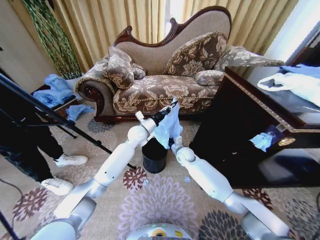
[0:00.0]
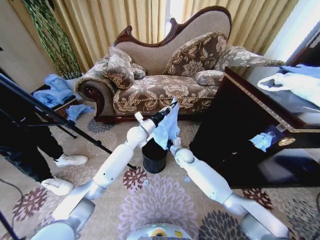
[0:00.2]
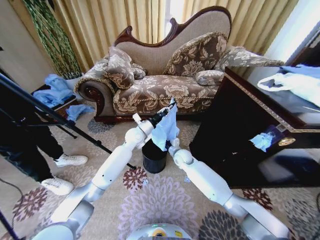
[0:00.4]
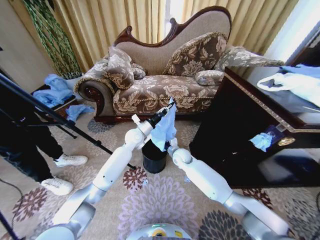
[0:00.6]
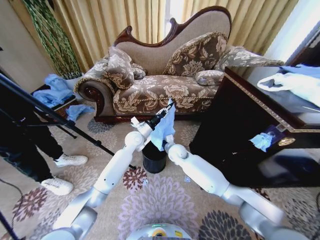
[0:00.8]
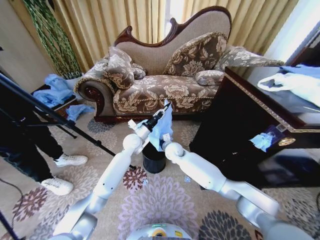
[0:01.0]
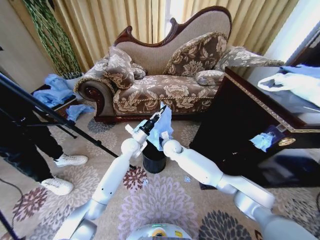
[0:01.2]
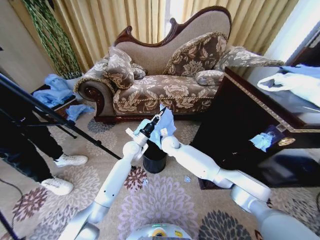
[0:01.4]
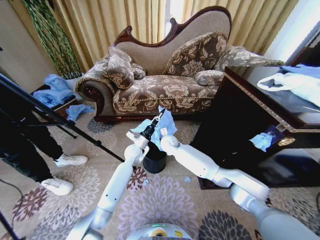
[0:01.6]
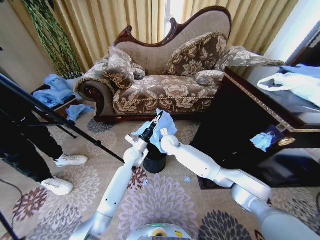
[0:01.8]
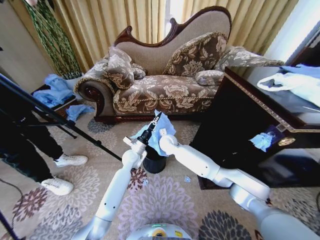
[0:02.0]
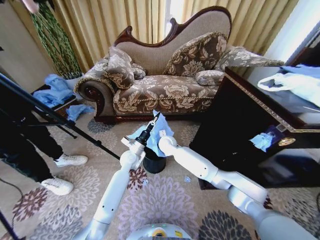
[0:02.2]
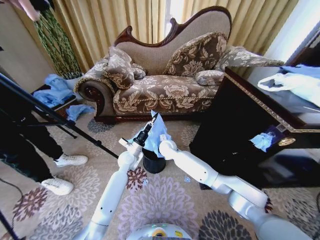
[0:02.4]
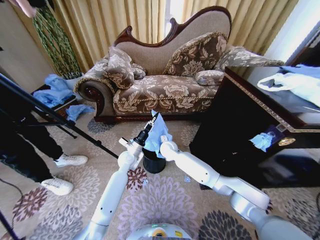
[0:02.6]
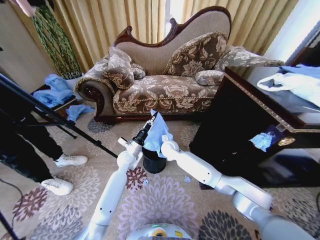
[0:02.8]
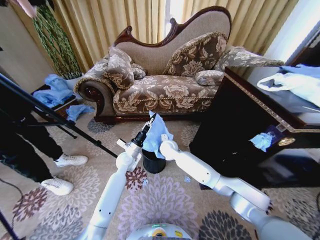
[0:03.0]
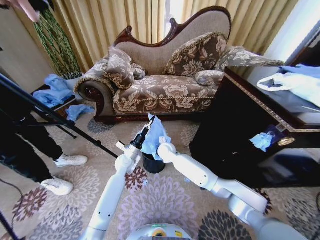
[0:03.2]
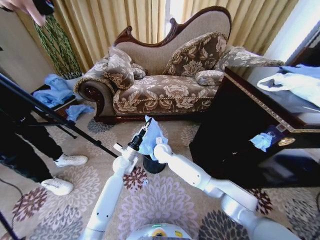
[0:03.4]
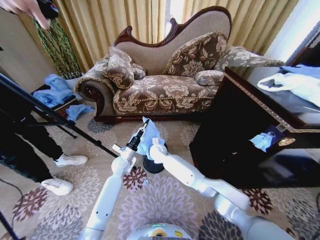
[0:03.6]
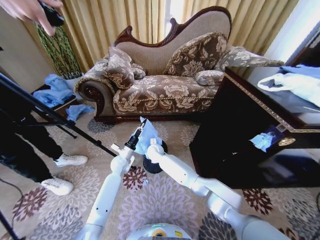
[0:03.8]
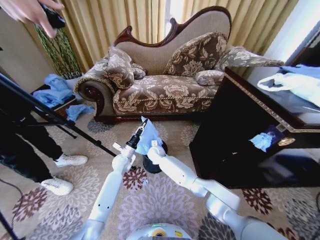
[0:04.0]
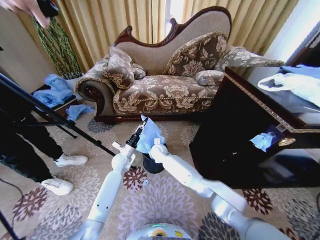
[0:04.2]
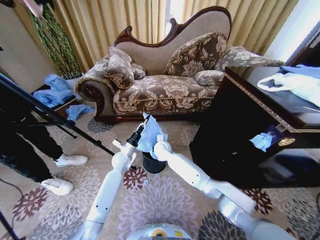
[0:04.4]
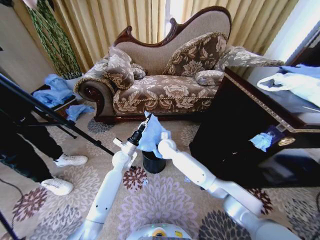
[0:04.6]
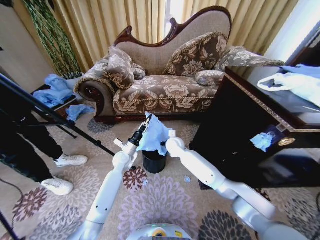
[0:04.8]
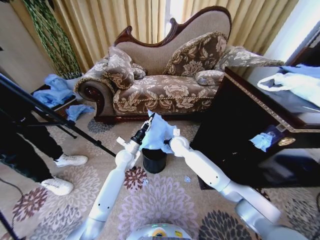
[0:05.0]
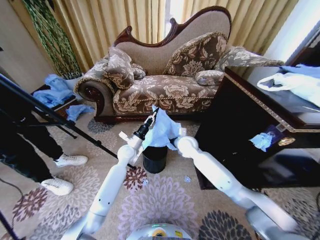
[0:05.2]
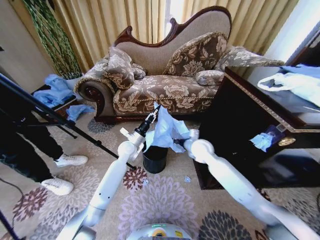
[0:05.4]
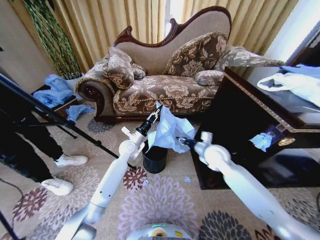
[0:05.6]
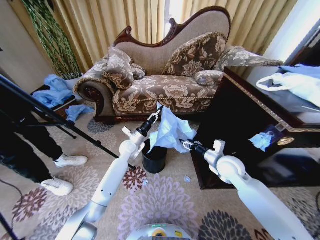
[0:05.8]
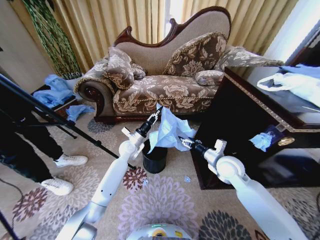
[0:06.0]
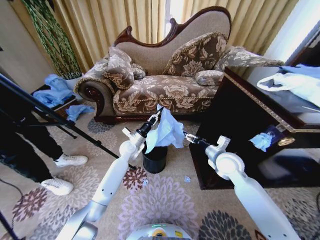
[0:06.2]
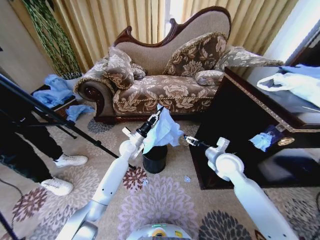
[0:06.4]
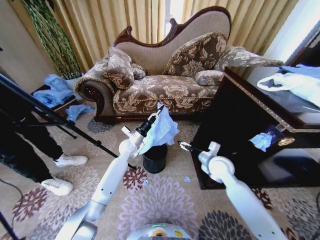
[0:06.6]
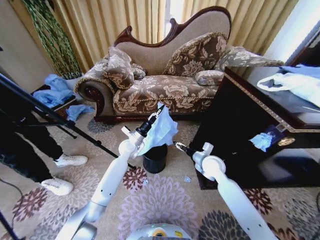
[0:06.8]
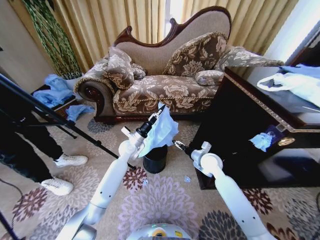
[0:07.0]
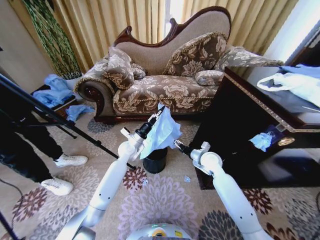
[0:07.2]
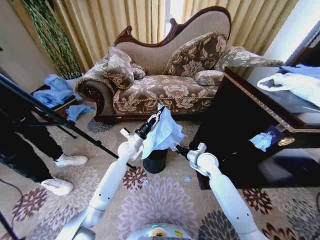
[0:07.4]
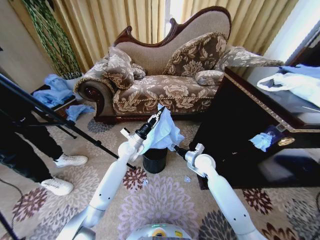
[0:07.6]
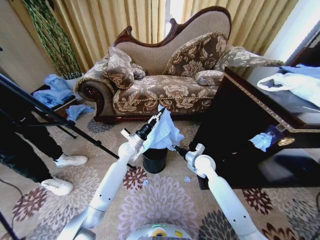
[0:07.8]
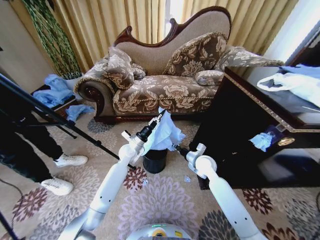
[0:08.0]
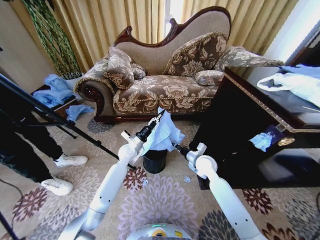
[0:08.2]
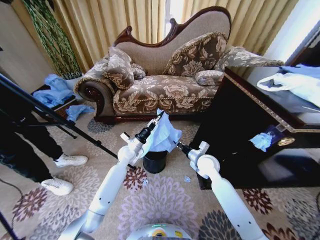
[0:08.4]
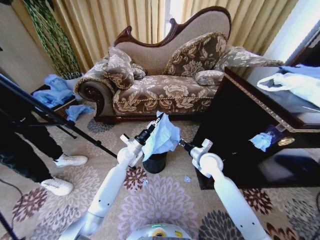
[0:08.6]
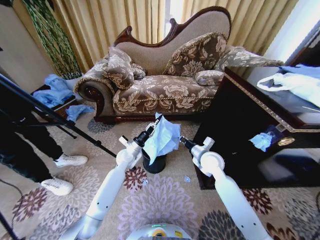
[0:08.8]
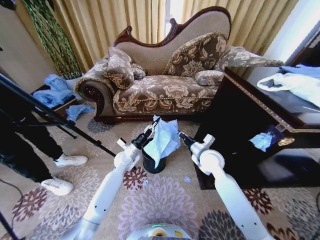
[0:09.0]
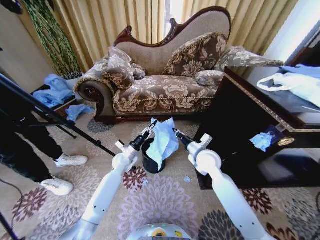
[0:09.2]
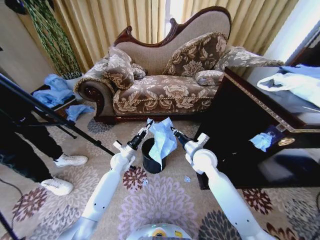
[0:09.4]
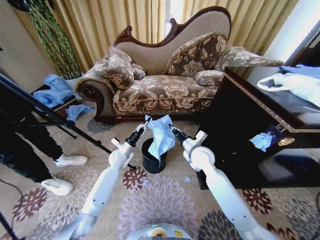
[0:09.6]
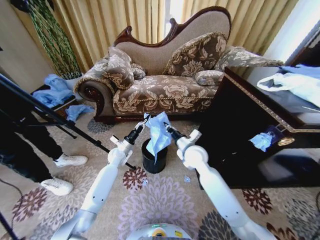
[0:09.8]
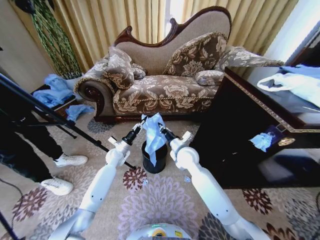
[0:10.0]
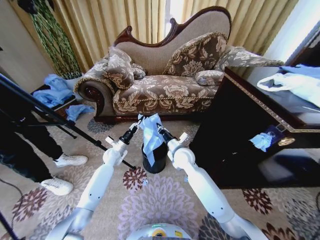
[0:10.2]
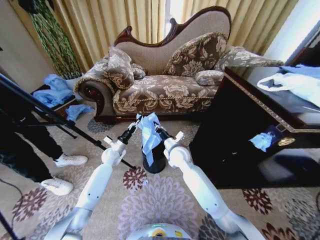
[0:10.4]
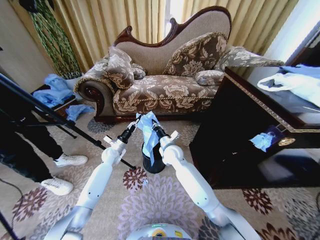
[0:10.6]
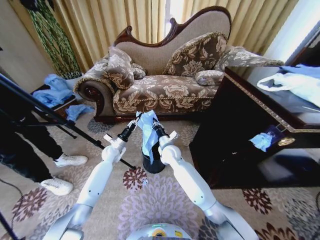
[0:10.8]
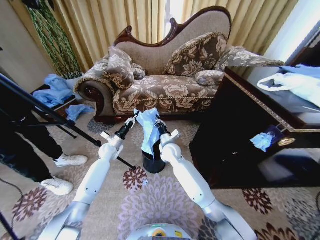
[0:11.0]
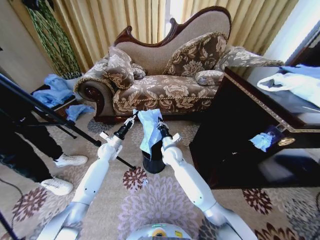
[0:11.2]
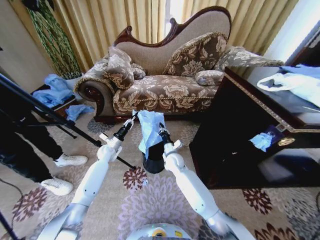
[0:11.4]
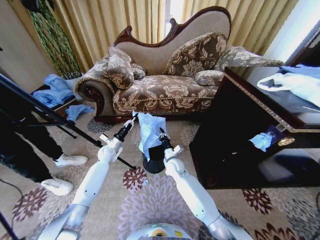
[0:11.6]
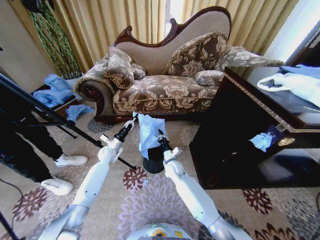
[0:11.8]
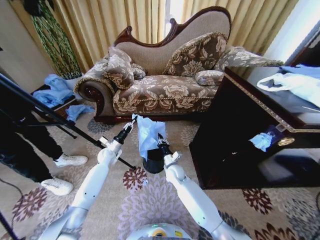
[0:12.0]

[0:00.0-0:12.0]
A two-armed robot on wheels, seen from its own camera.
Task of the whole recording: Place a garbage bag over the trash bin.
0:00.0 to 0:01.6: The left gripper shifts approximately 10 cm downward, while the right gripper moves to the left and upward, about 10 cm.
0:01.6 to 0:03.0: The left gripper ends up roughly 5 cm from where it was.
0:04.4 to 0:06.0: The right gripper is displaced to the right and backward by approximately 30 cm, and opens up. Meanwhile the left gripper shifts by approximately 5 cm.
0:06.0 to 0:07.6: The right gripper heads downward, to the left and forward, covering about 10 cm.
0:07.6 to 0:09.0: The right gripper heads upward, covering roughly 5 cm, and closes, while the left gripper moves roughly 5 cm.
0:09.0 to 0:10.4: The two grippers go about 10 cm to the left.
0:10.4 to 0:12.0: The right gripper is displaced downward by approximately 15 cm.

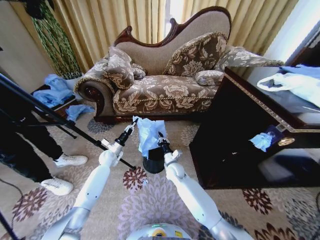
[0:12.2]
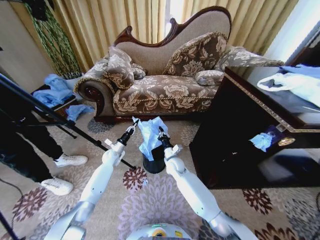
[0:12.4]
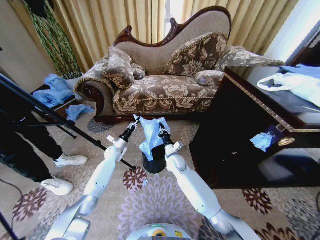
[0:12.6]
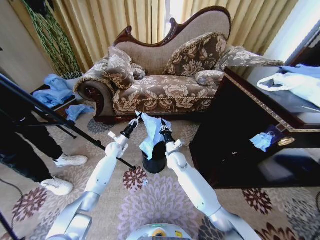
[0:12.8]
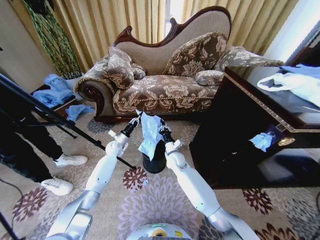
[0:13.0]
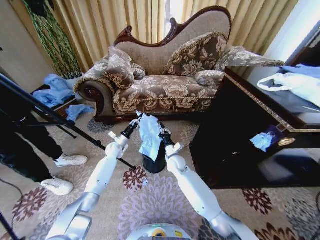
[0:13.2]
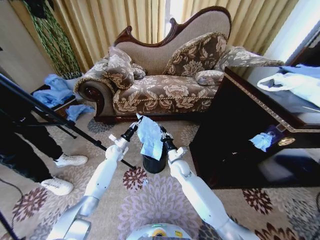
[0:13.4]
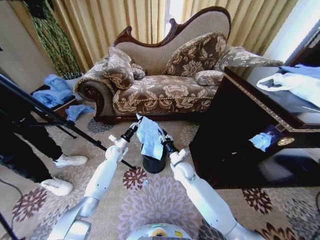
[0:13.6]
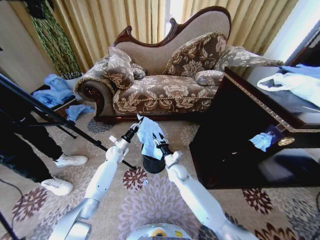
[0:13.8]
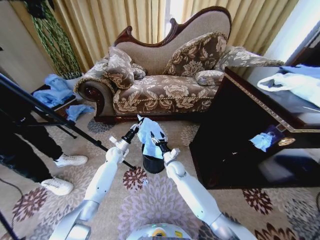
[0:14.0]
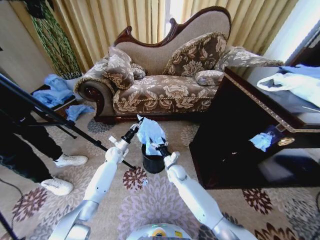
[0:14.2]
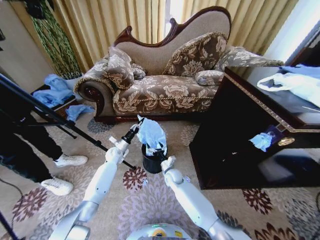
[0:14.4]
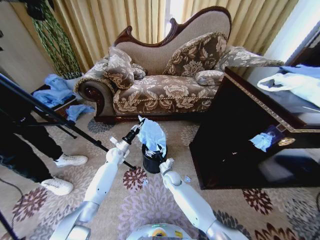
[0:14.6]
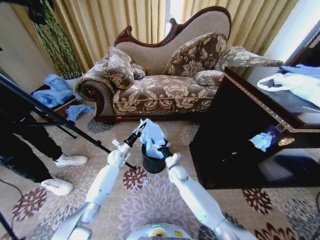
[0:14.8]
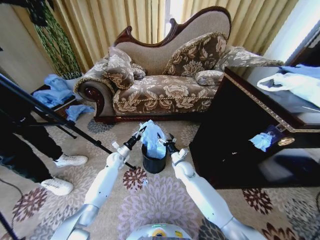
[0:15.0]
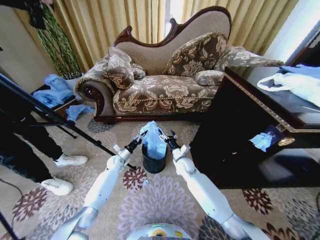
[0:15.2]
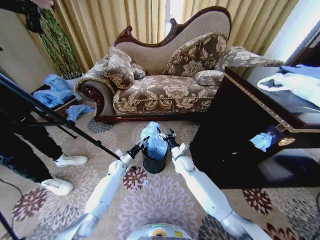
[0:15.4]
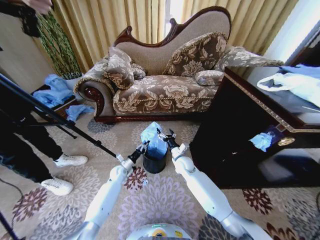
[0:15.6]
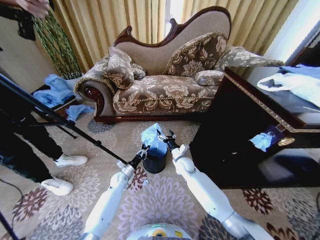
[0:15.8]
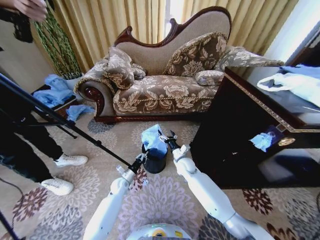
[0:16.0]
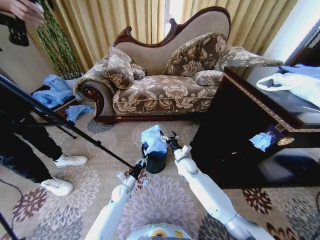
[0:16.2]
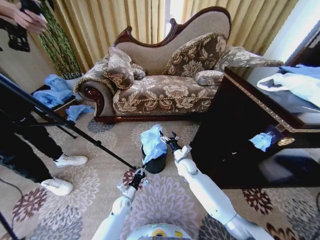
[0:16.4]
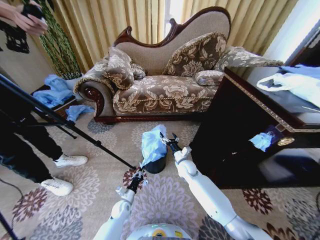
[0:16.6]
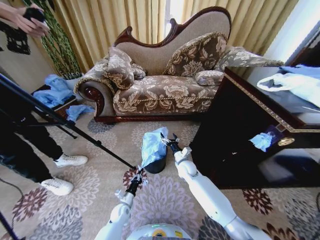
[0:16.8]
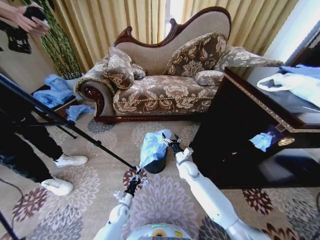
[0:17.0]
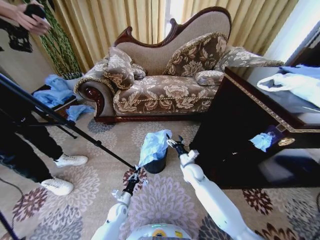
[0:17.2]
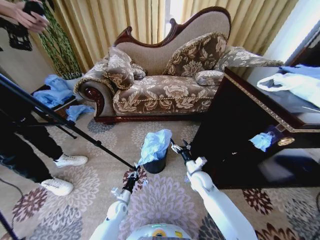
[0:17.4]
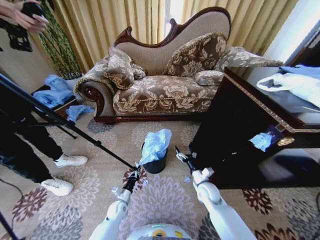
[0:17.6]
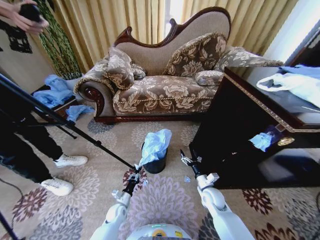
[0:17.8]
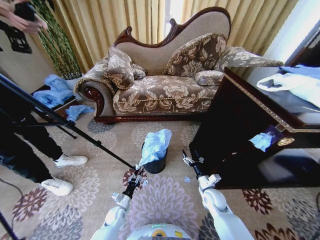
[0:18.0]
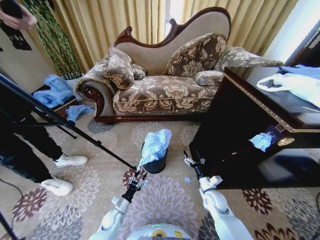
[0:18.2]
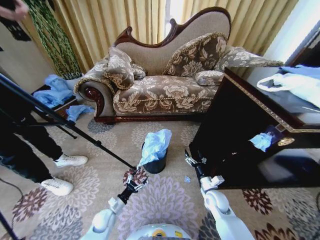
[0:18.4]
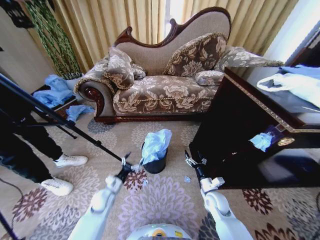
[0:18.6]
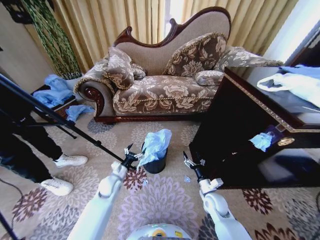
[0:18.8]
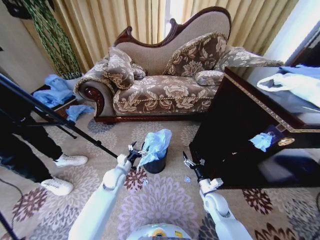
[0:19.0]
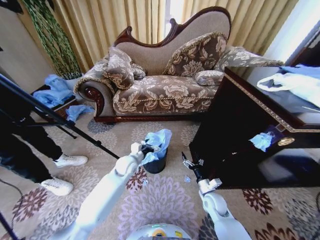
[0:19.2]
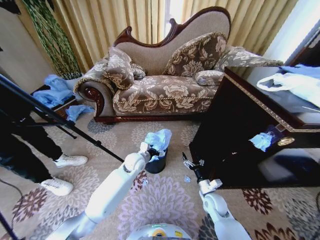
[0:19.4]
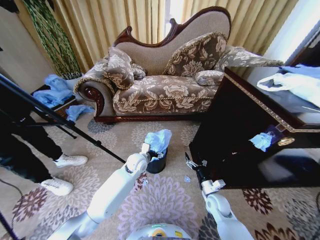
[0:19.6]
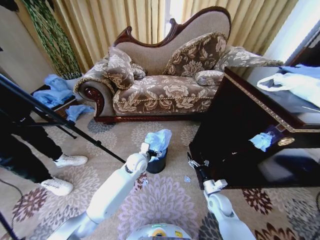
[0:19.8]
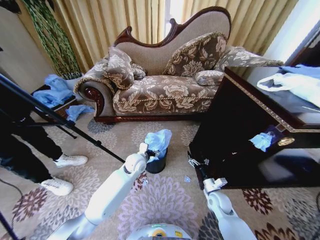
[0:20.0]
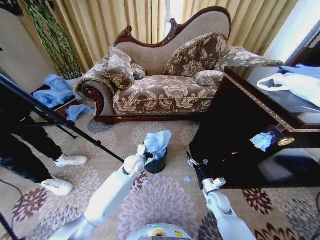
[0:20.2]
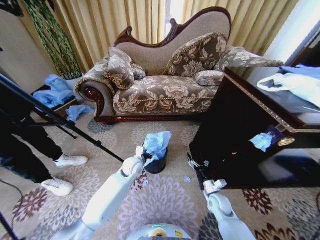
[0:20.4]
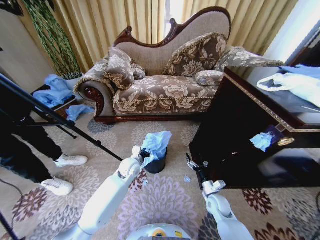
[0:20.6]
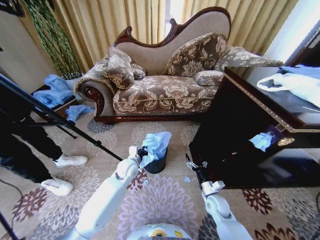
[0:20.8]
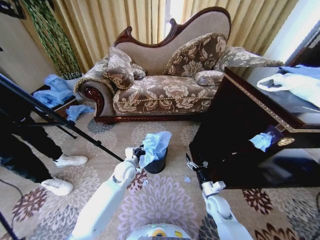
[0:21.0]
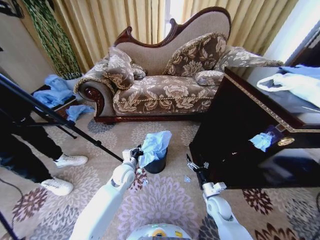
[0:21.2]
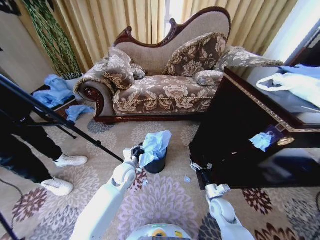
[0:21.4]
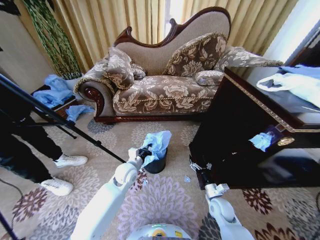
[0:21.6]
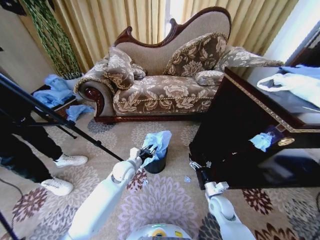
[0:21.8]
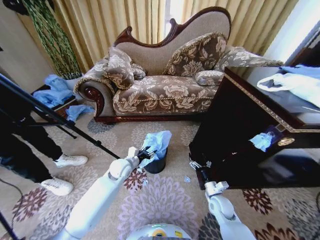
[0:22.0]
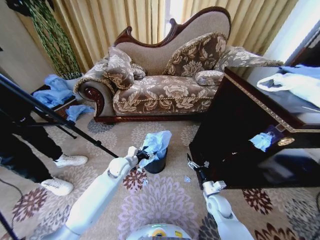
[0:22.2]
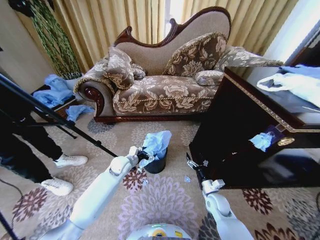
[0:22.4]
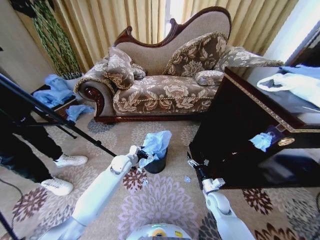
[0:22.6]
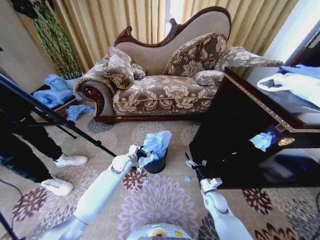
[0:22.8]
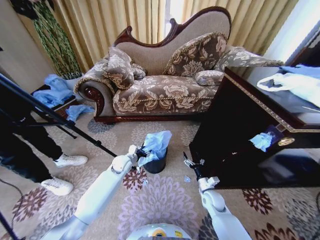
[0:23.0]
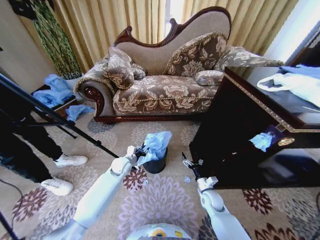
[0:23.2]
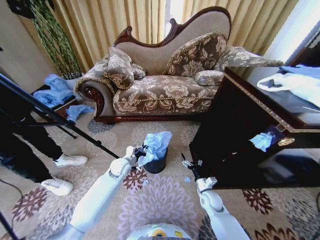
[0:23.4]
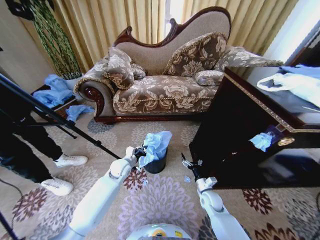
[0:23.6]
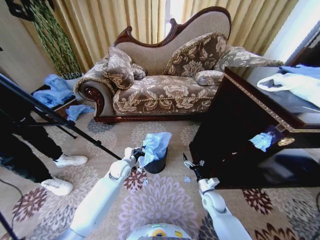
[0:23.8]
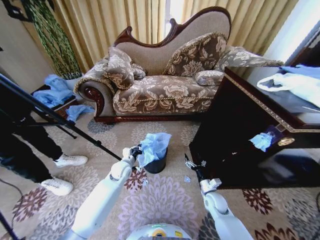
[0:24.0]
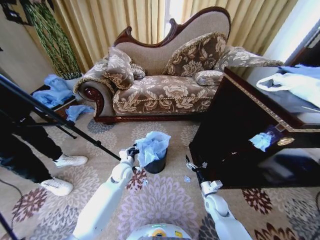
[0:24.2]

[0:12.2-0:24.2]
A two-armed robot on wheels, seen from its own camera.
Task of the whole recording: Place a garbage bag over the trash bin.
0:12.2 to 0:13.8: The right gripper opens its fingers.
0:13.8 to 0:15.2: The left gripper heads downward, covering about 5 cm; the right gripper goes downward and returns, about 5 cm each way, and opens its fingers.
0:15.2 to 0:16.6: The left gripper shifts about 25 cm backward and downward.
0:16.6 to 0:18.2: The left gripper changes place by roughly 5 cm, and opens; the right gripper shifts some 20 cm backward and to the right.
0:18.2 to 0:19.8: The left gripper moves upward, forward and to the right, roughly 35 cm, and opens up.
0:19.8 to 0:21.2: The left gripper shifts roughly 5 cm to the left, and closes its fingers.
0:21.2 to 0:22.6: The left gripper is displaced forward by some 5 cm, and opens up.
0:22.6 to 0:24.2: The left gripper closes its fingers.
